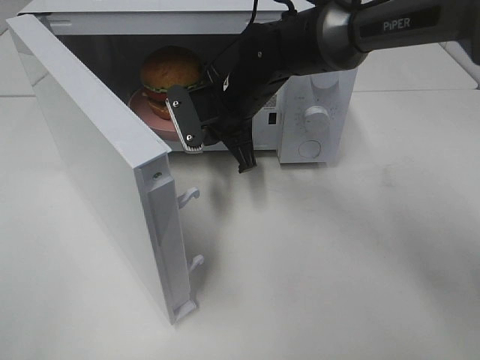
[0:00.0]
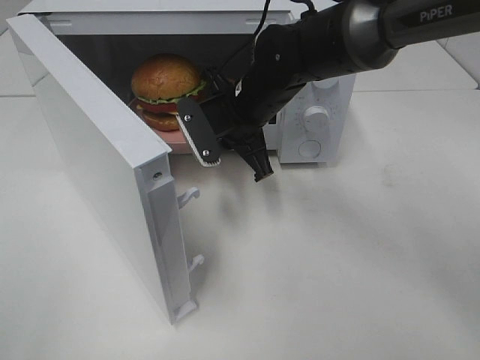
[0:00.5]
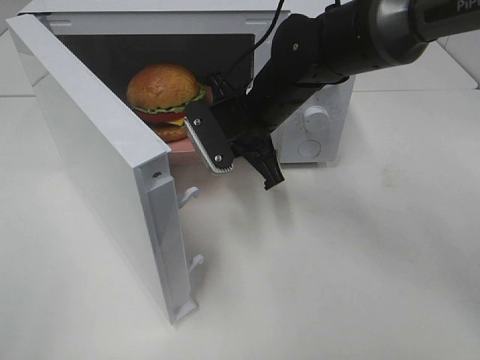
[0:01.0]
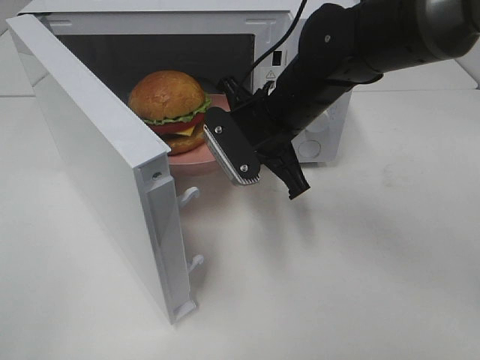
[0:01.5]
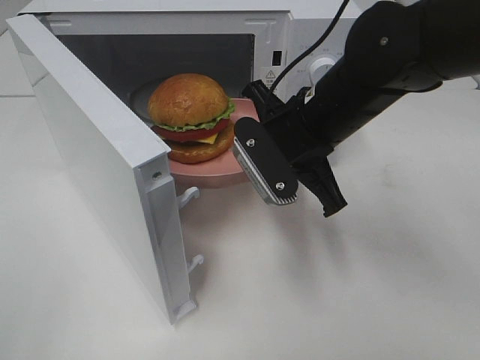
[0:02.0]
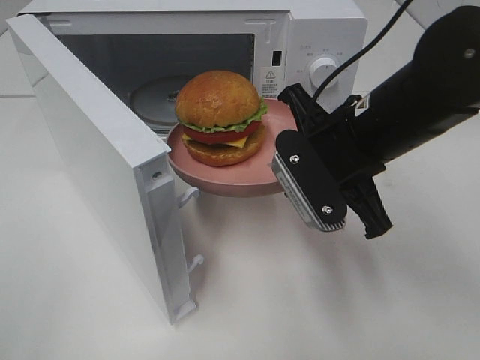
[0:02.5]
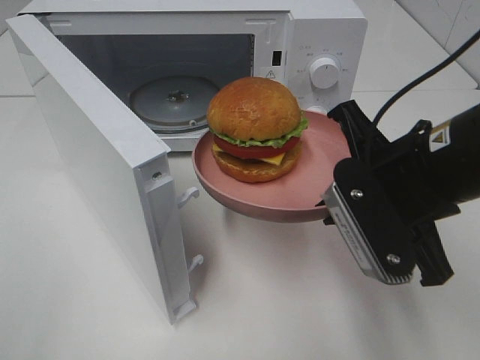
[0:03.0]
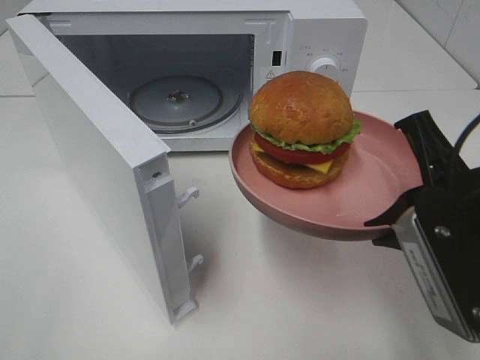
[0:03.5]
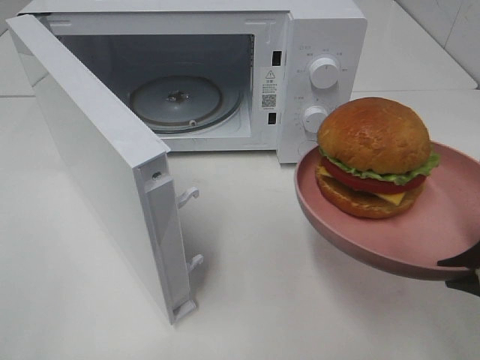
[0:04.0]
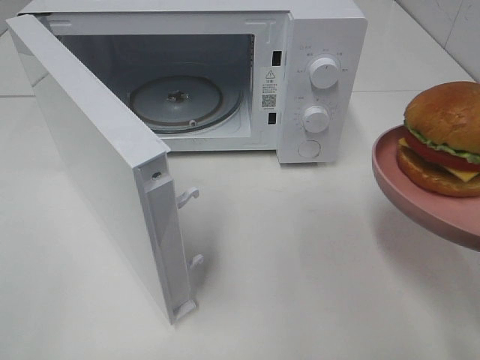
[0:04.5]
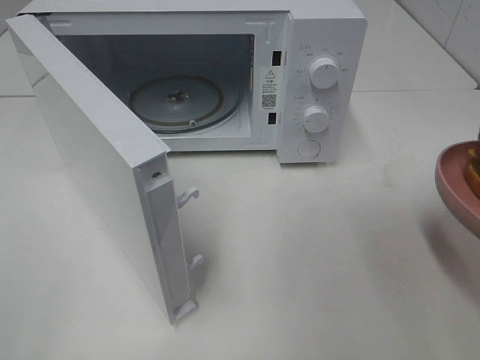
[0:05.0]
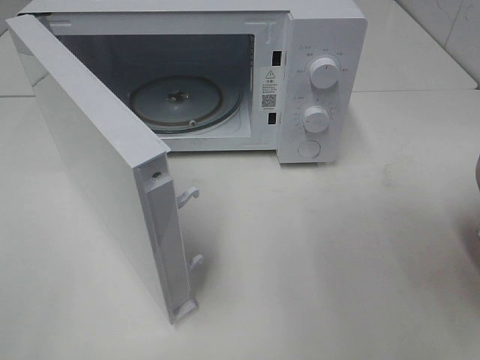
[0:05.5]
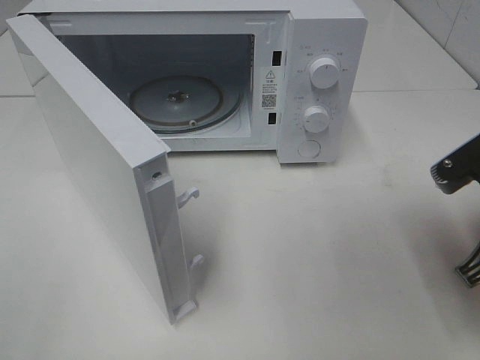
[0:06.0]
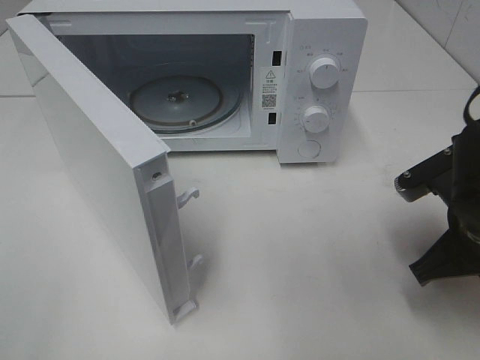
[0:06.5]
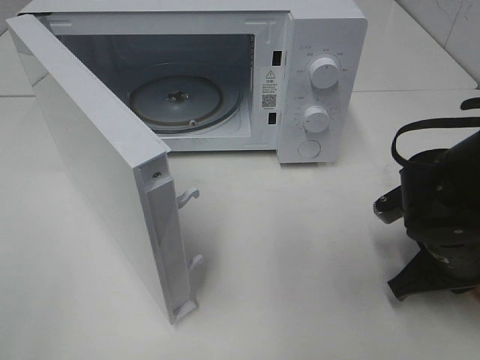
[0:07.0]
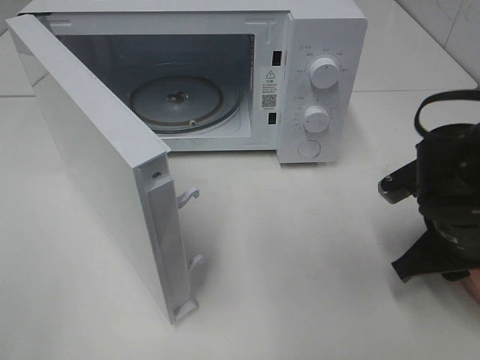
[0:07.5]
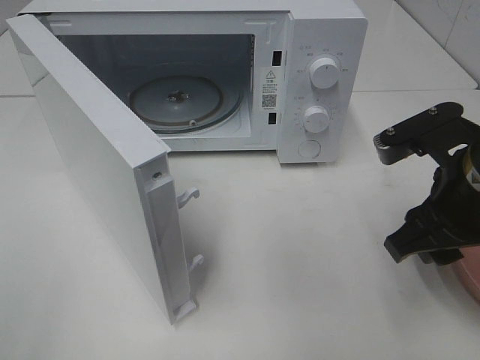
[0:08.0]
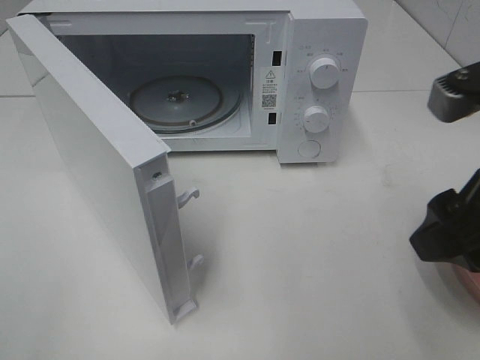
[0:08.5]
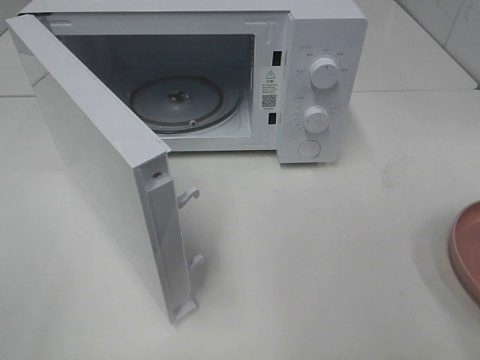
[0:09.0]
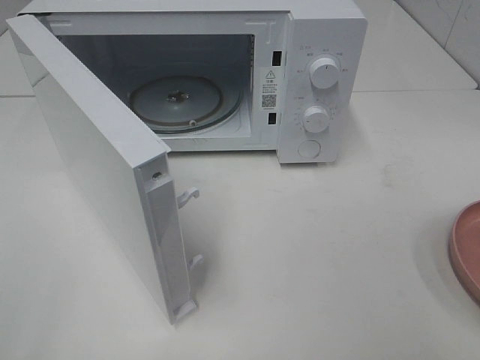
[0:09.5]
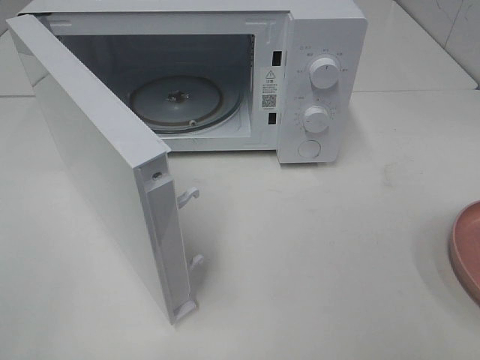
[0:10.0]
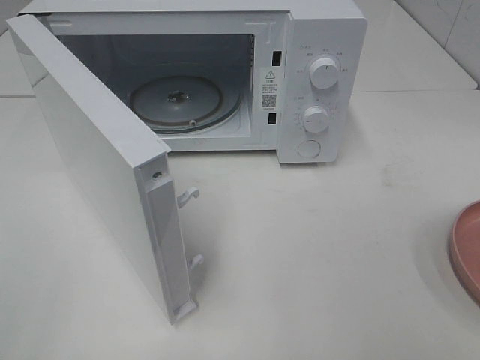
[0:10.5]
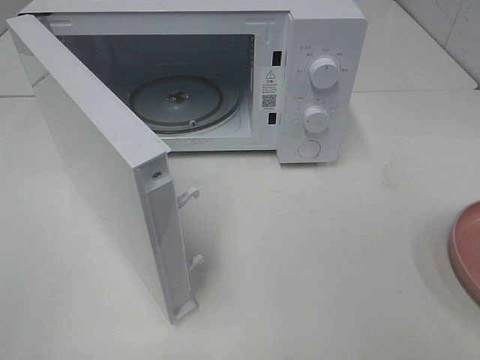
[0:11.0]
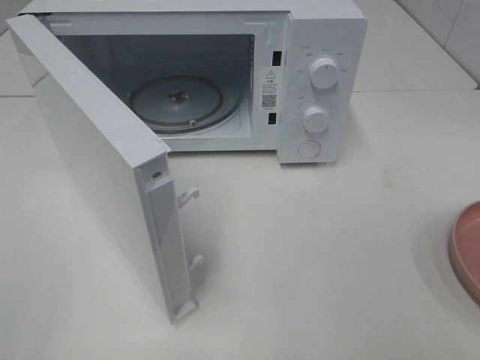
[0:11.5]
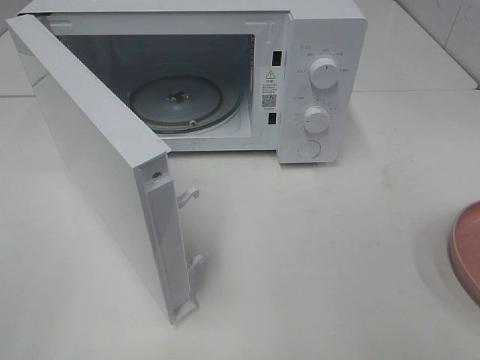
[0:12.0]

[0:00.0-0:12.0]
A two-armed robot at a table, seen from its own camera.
Task of the whole recording: Heat the burger.
Step, 0:00.0 to 0:07.5: Right hand: place the plate on the table.
0:00.0 to 0:02.0: The right gripper heads backward and to the right, covering about 15 cm.
0:02.0 to 0:04.0: The right gripper is displaced backward and to the right by approximately 25 cm.
0:04.0 to 0:06.0: The right gripper moves forward, about 5 cm.
0:06.0 to 0:08.0: The right gripper moves roughly 10 cm downward and comes back, and opens its fingers.
0:08.0 to 0:10.0: The right gripper goes approximately 25 cm backward, to the right and upward.

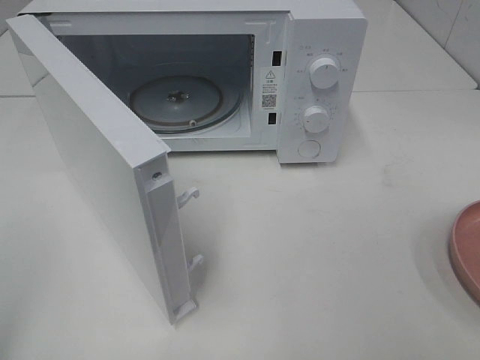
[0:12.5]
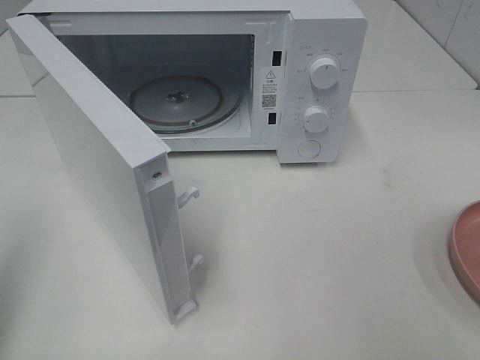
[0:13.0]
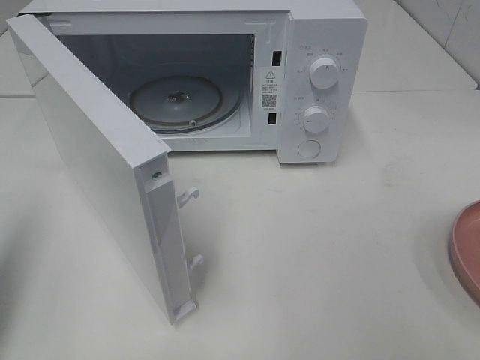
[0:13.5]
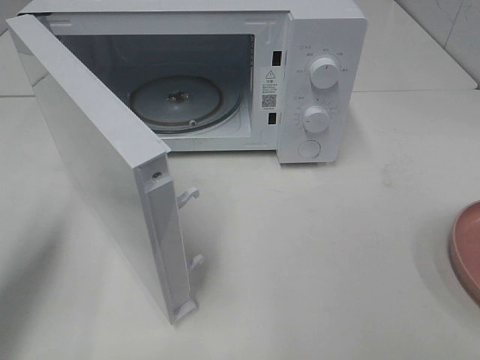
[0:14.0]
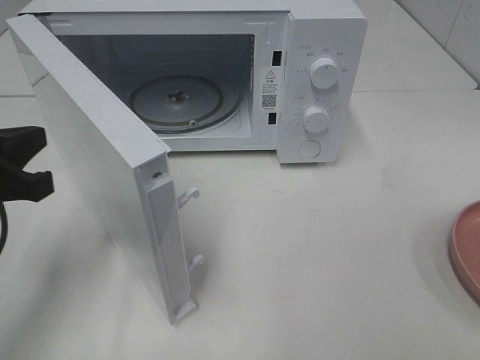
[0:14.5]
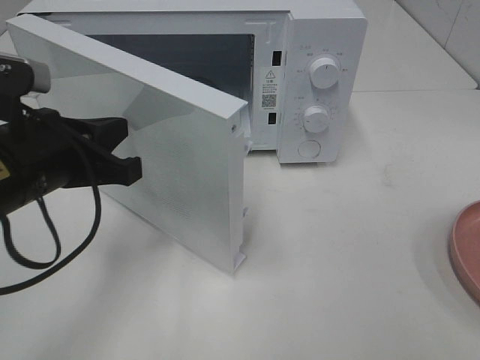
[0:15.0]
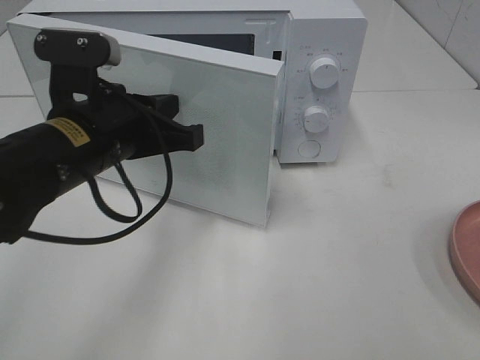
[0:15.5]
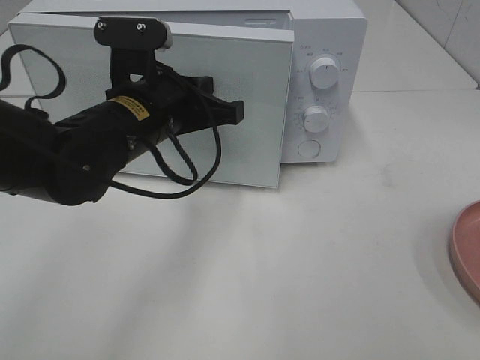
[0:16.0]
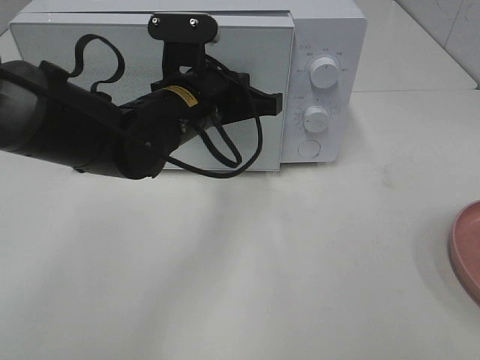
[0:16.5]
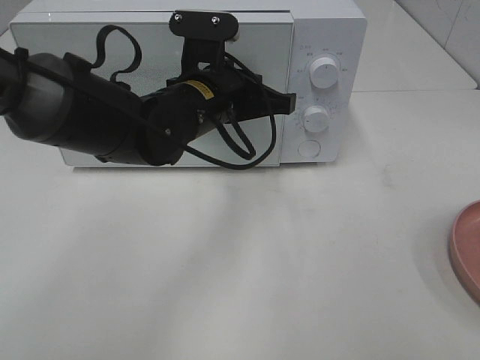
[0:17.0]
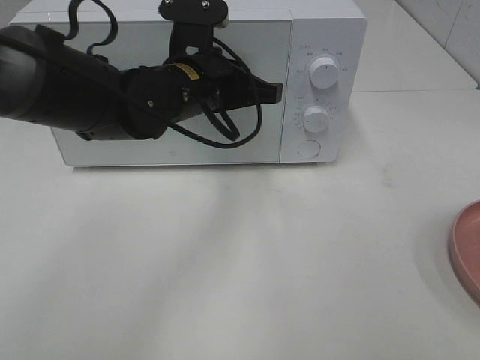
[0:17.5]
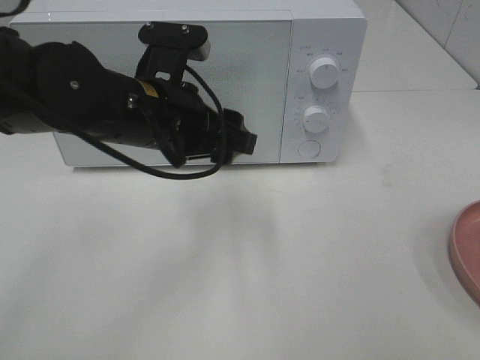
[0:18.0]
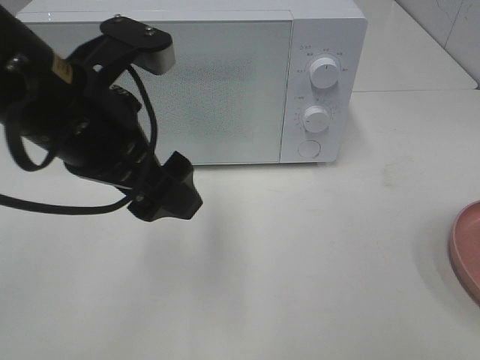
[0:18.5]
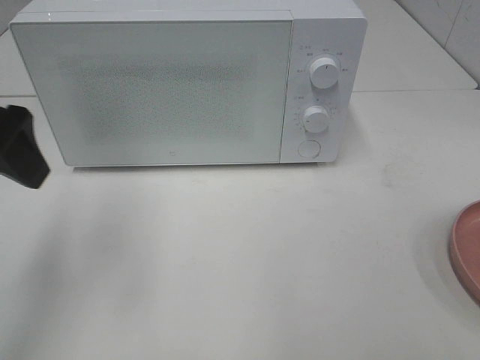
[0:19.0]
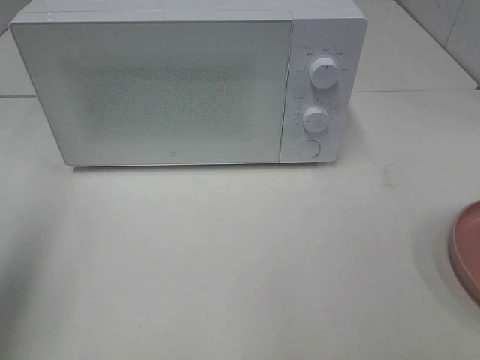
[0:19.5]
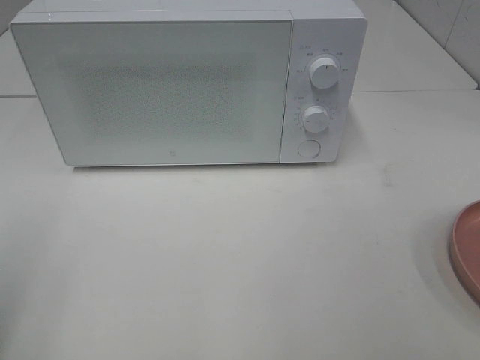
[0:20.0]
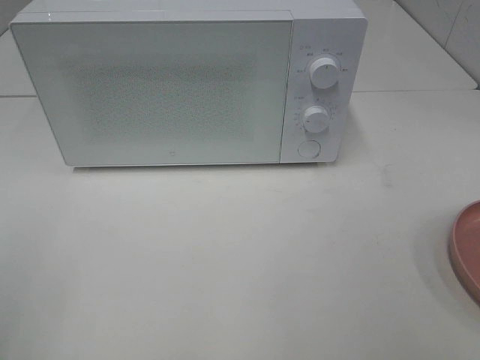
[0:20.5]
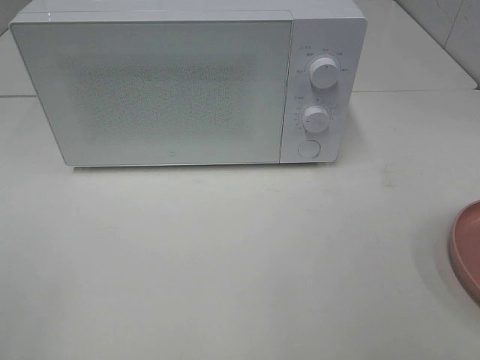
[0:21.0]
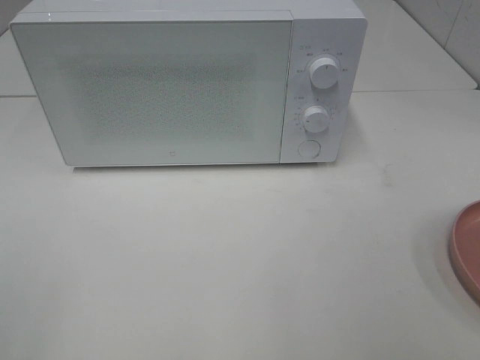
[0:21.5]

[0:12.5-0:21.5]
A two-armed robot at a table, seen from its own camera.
Task of the whole recording: Heat the burger.
Step, 0:12.5 to 0:17.5: Left hand: close the microwave door.
0:12.5 to 0:14.5: The left gripper heads forward, downward and to the right, covering approximately 20 cm, and closes its fingers.
0:14.5 to 0:17.0: The left gripper is displaced to the right and forward by some 25 cm.
0:17.0 to 0:19.5: The left gripper shifts roughly 35 cm to the left, backward and upward, and opens its fingers.
0:19.5 to 0:21.5: The left gripper is displaced backward by some 15 cm.

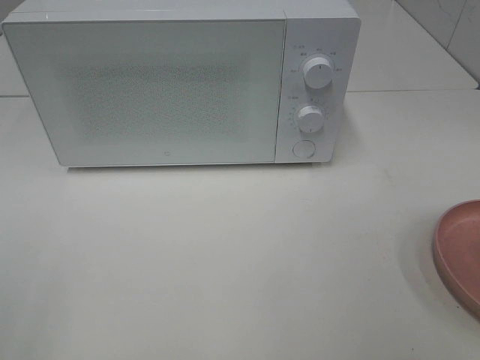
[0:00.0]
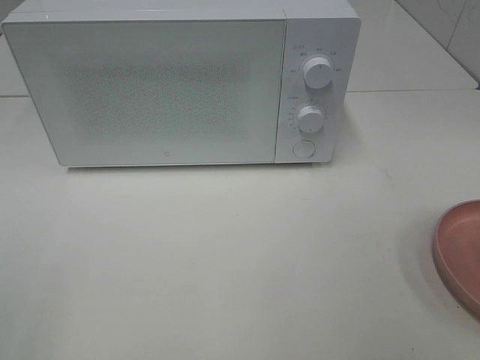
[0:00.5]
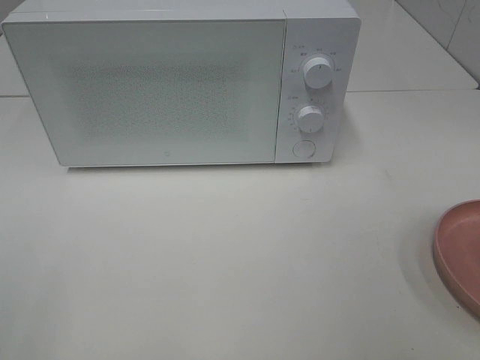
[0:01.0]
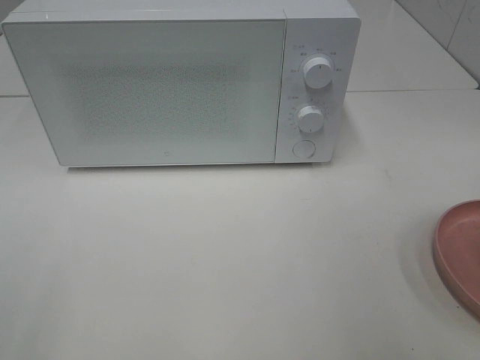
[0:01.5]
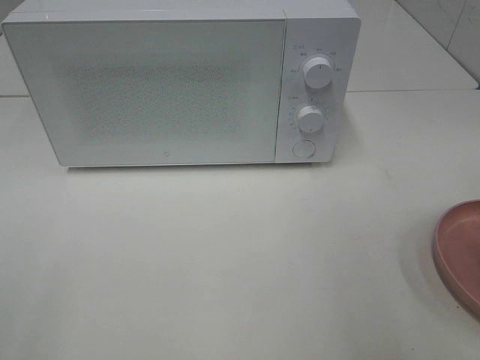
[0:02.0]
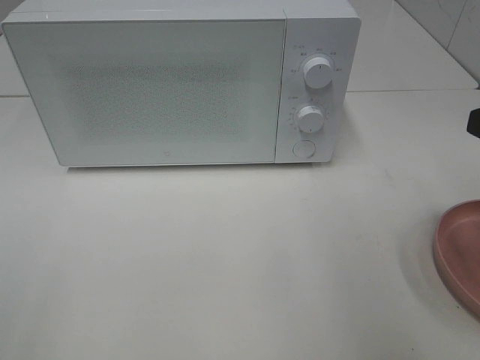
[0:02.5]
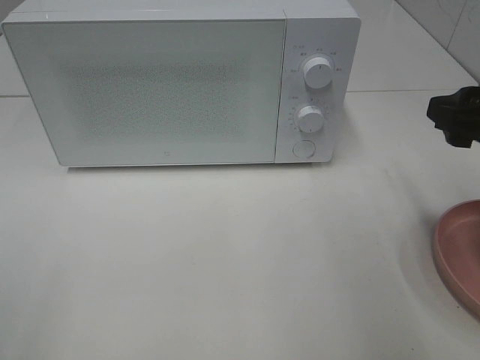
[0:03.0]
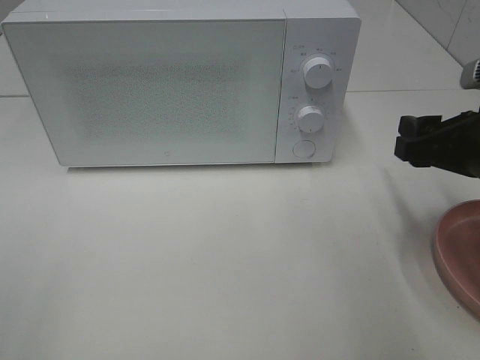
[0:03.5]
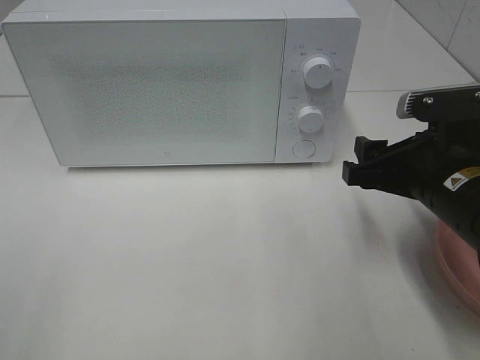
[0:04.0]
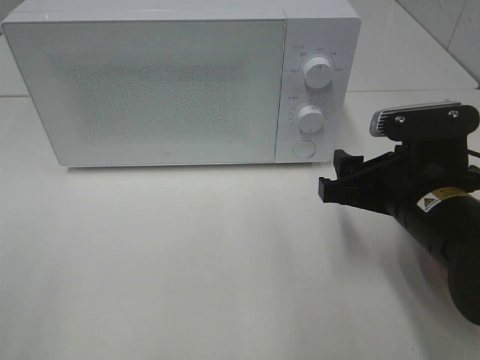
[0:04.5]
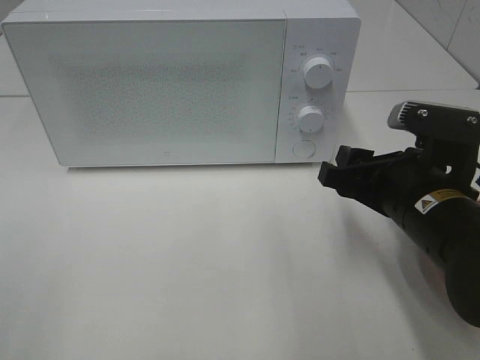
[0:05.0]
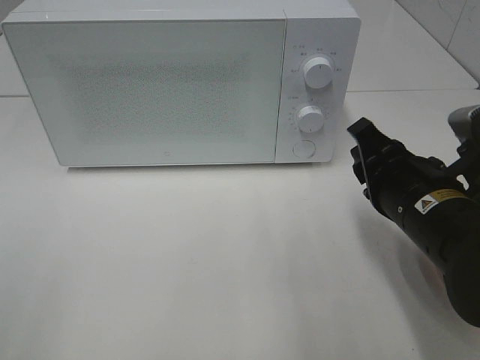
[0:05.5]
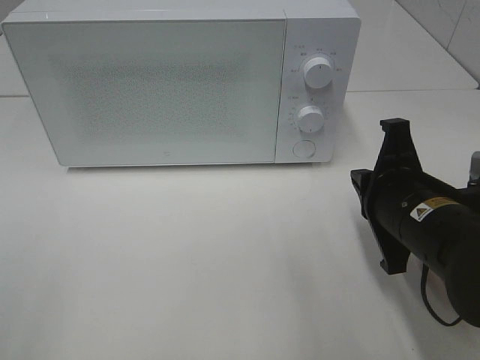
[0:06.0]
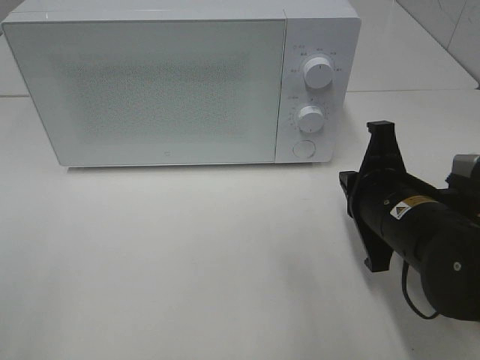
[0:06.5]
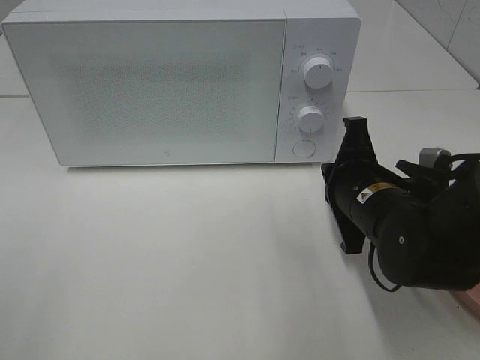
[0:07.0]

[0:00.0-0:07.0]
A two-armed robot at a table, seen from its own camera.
Task of the whole recording: Heat the burger.
0:02.0 to 0:03.5: The right gripper is displaced downward and forward by roughly 15 cm.
0:03.5 to 0:05.0: The right gripper shifts approximately 5 cm to the left.
0:05.0 to 0:07.0: The right gripper shifts by roughly 5 cm, and closes up.
